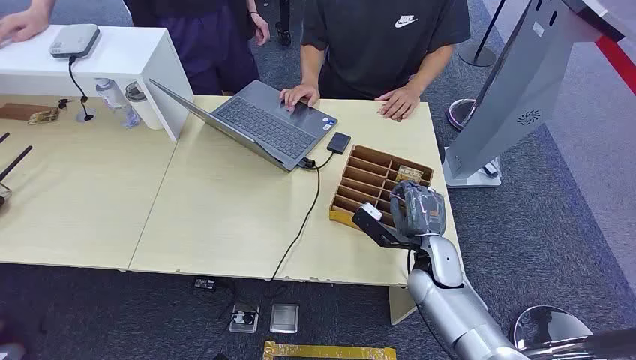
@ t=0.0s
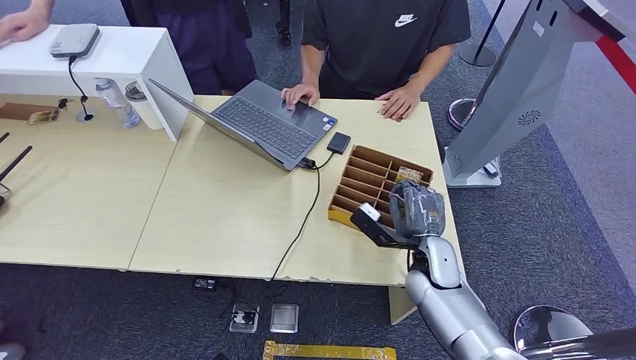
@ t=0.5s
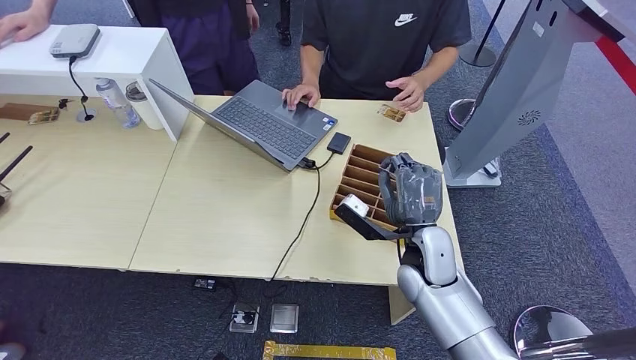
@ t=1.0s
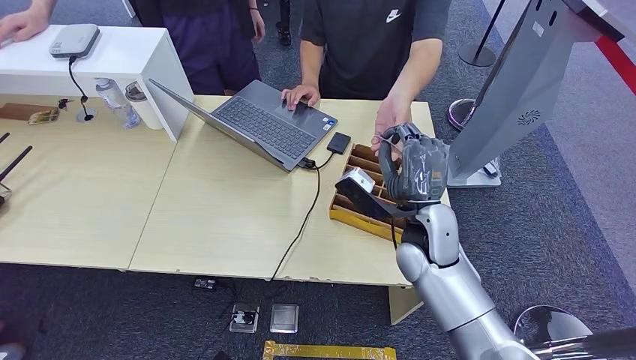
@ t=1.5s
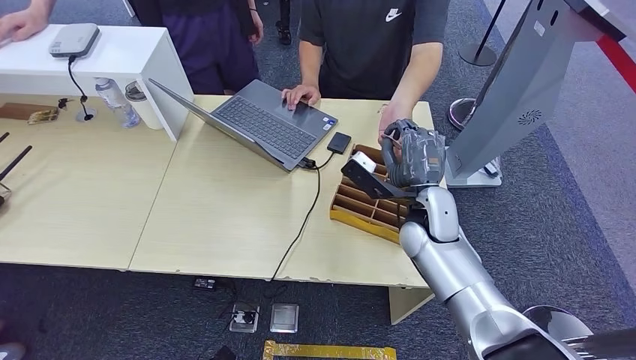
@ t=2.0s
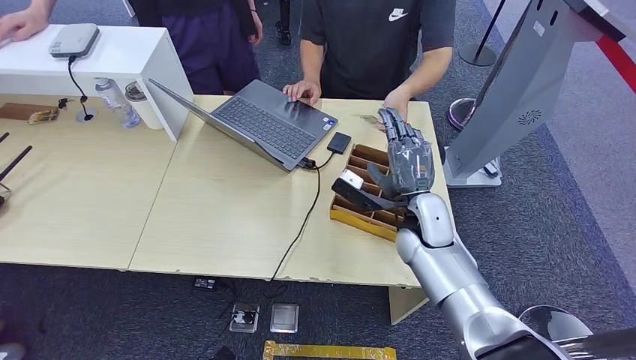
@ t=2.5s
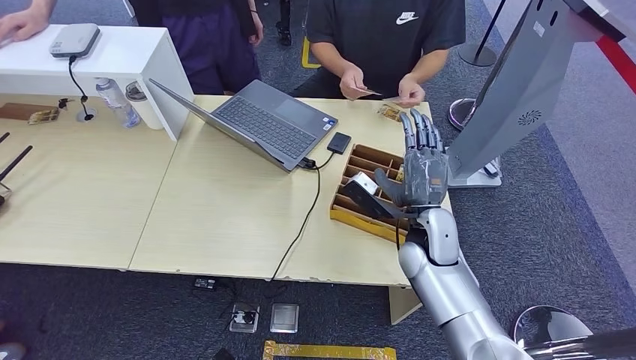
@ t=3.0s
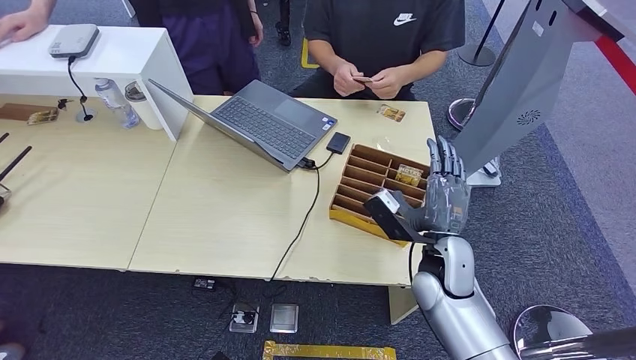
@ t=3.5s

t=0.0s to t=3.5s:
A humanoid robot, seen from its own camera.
Step, t=0.0s to t=1.0s: Pick up the room card from the card holder.
Step, t=1.5s to t=3.5s: Hand the room card to the target.
t=2.0s to t=3.5s: The right hand is displaced backward by approximately 5 cm.
